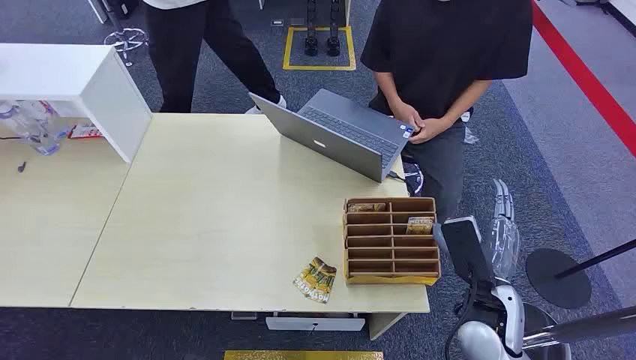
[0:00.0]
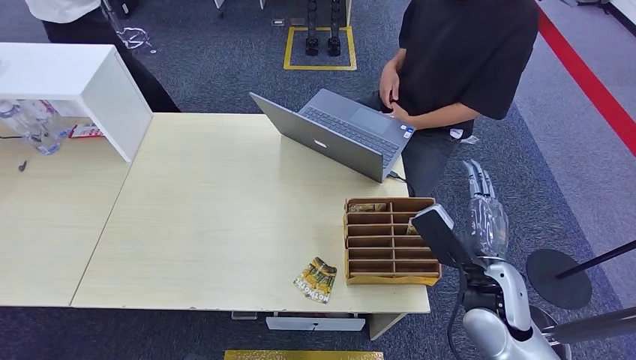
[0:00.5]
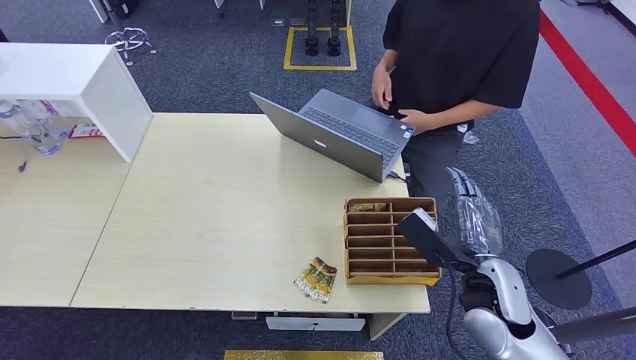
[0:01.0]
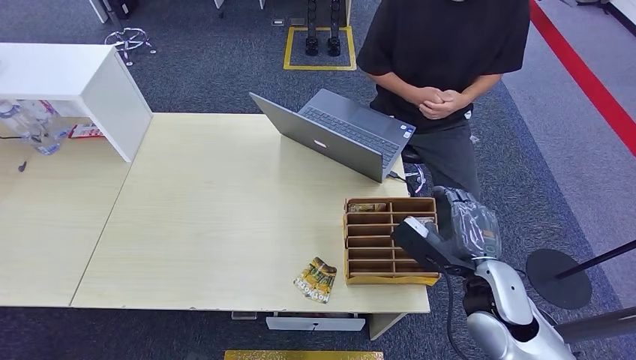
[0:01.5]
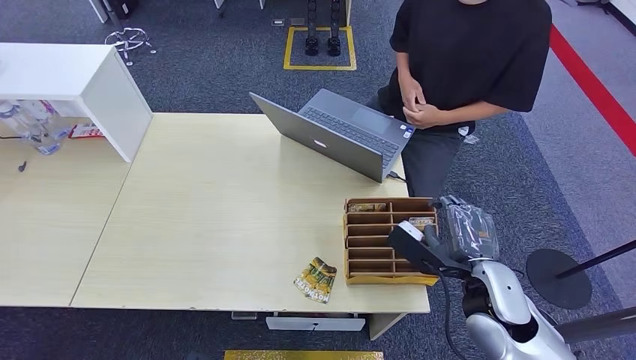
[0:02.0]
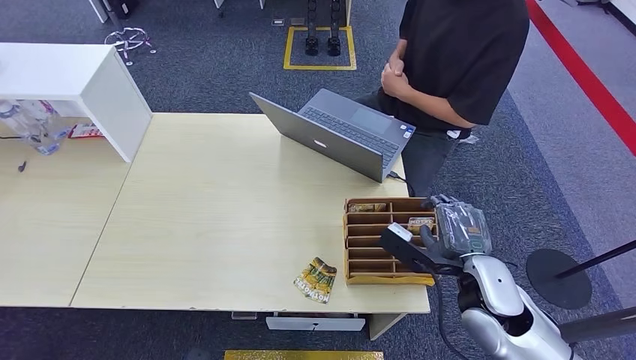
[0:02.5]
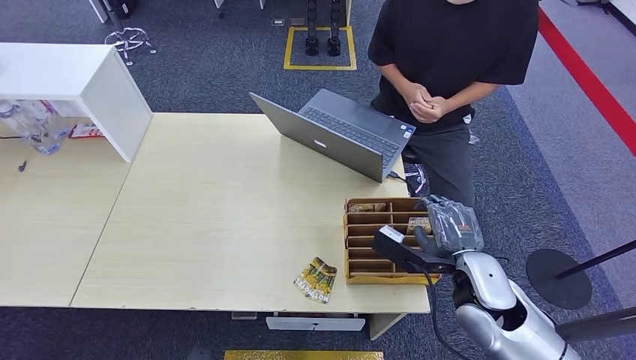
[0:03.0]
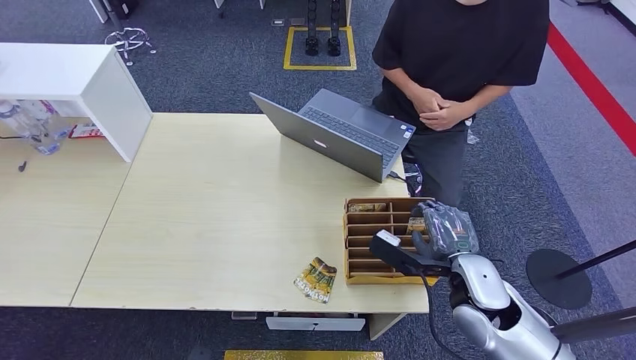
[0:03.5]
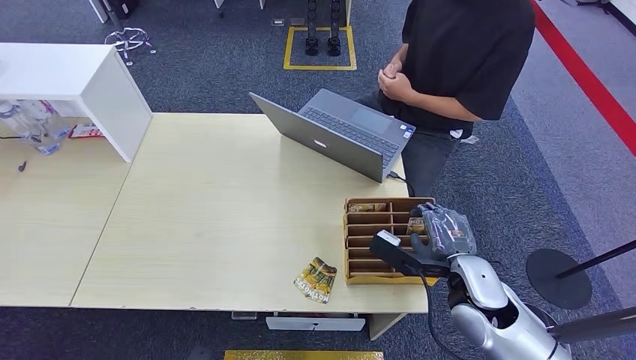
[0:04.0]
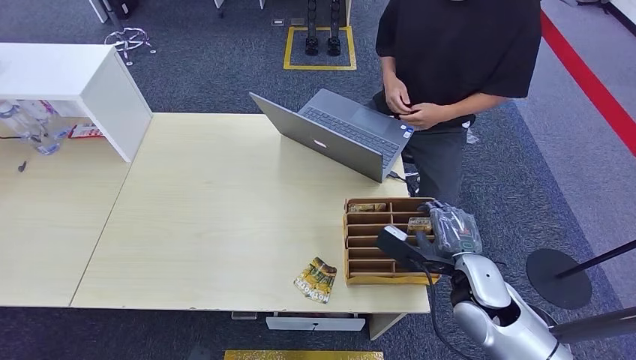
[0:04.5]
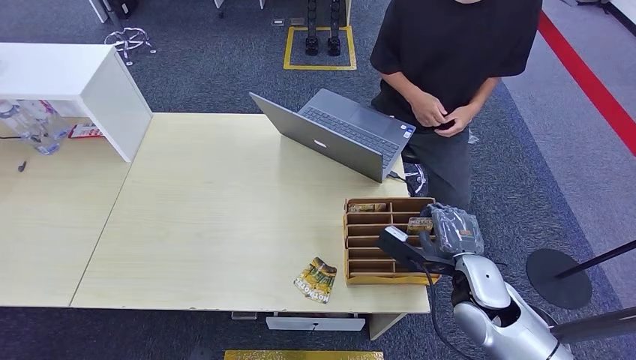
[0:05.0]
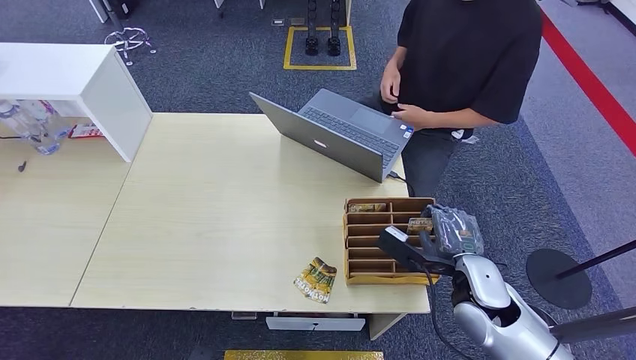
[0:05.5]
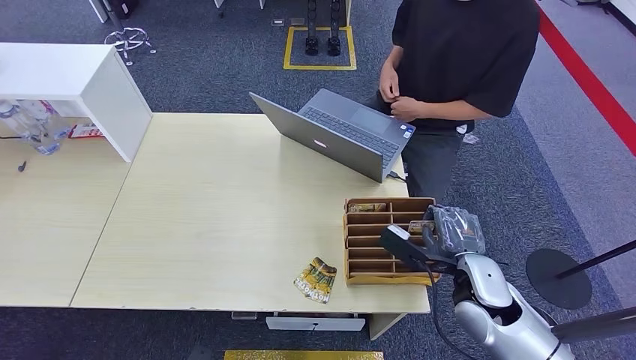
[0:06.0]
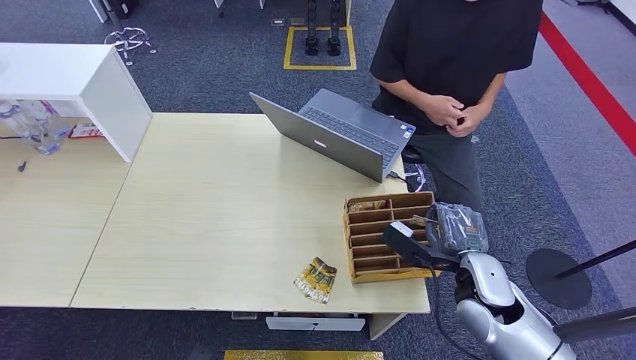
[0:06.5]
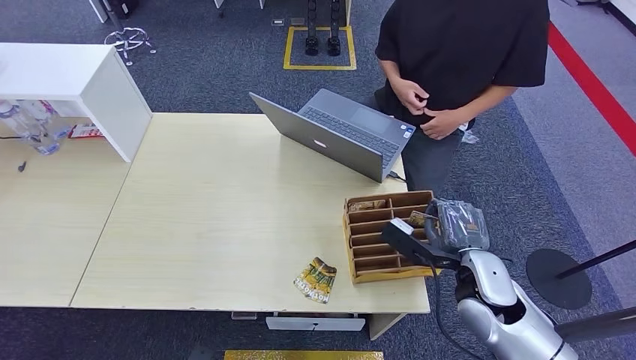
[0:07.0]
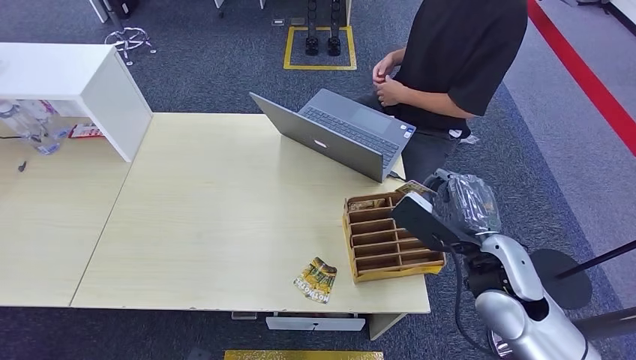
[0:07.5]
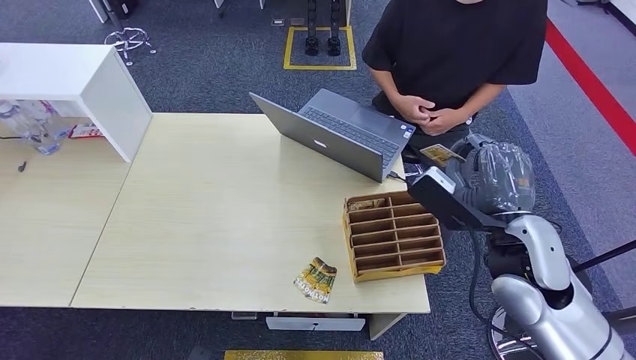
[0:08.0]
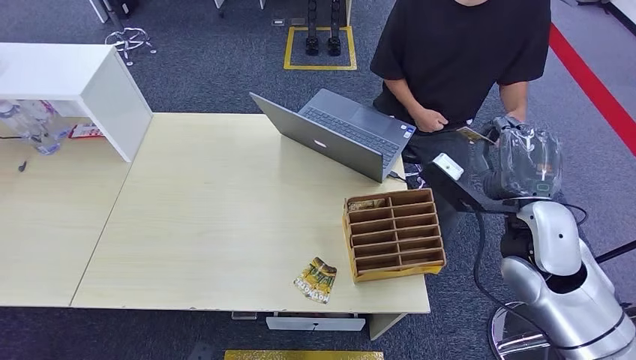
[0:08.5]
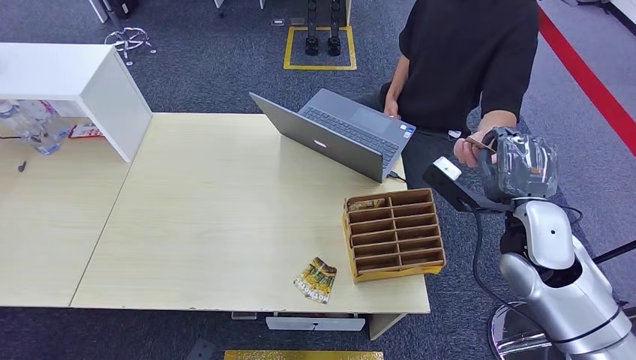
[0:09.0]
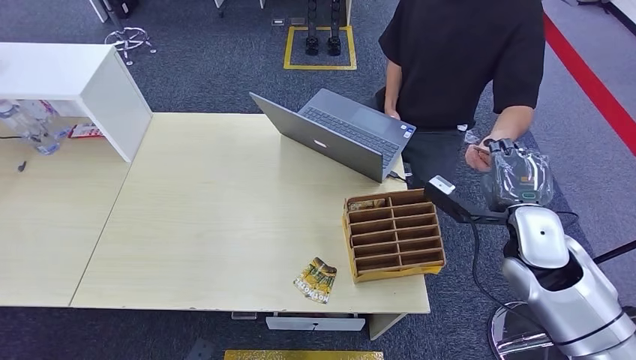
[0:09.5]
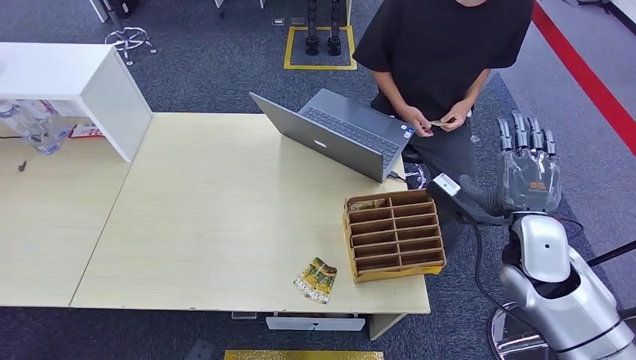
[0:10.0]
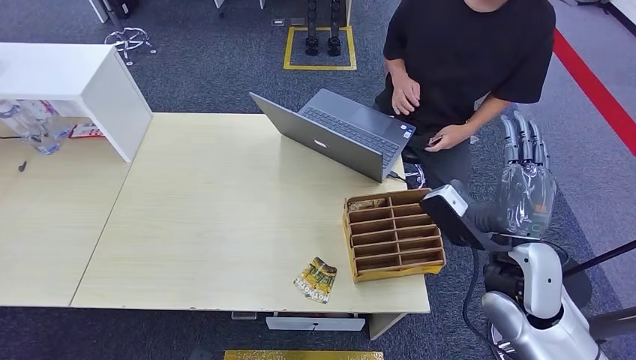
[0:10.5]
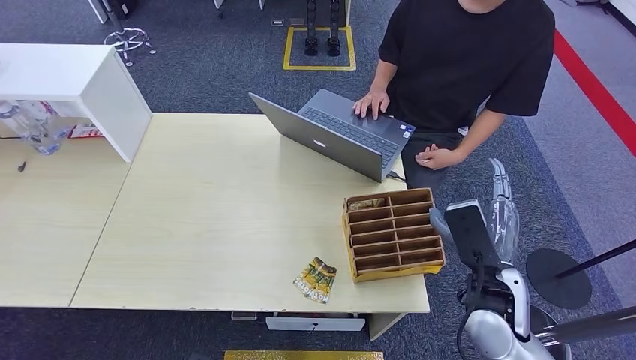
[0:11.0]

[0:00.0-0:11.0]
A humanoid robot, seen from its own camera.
Step, 0:00.0 to 0:07.5: Pick up the key card from the card box.
Step, 0:08.0 to 0:11.0: Hand the key card to the target.
0:02.0 to 0:05.5: The hands stay close to where they were, moving slightly.
0:05.5 to 0:07.5: The right hand shifts roughly 10 cm upward.
0:07.5 to 0:09.0: The right hand heads to the right, covering roughly 5 cm.
0:09.0 to 0:11.0: The right hand shifts about 10 cm downward, backward and to the left.

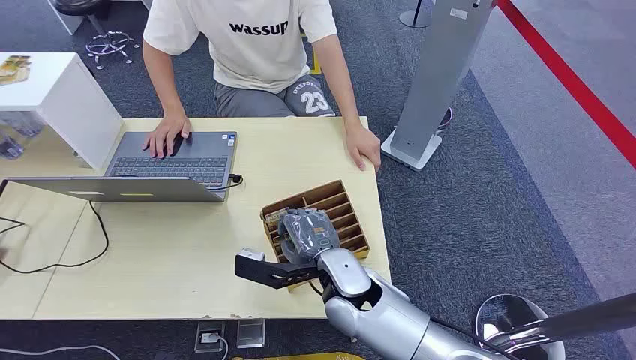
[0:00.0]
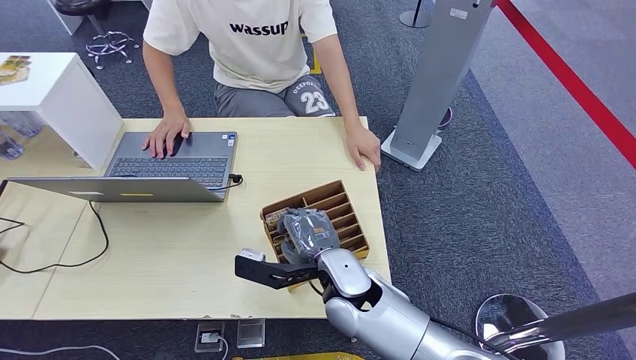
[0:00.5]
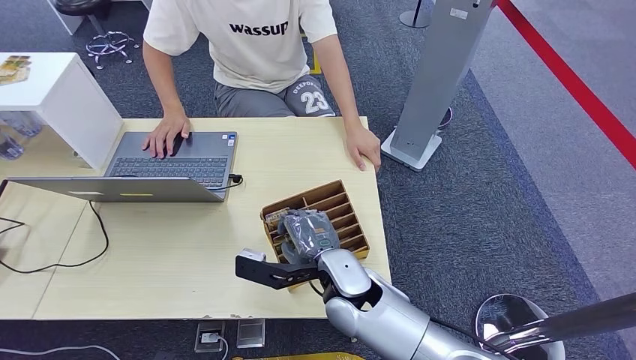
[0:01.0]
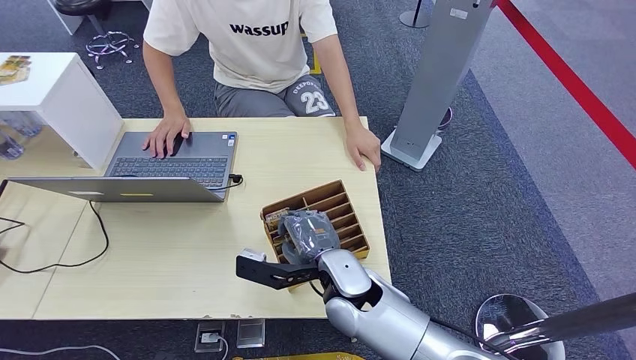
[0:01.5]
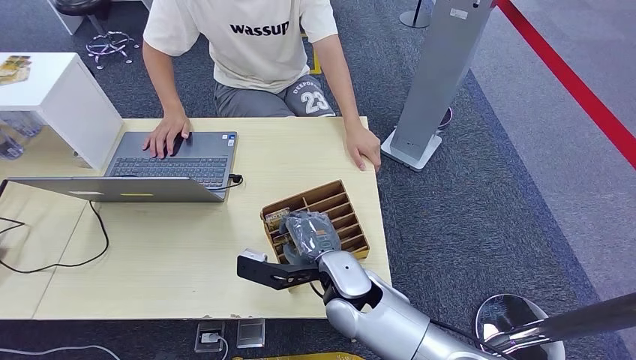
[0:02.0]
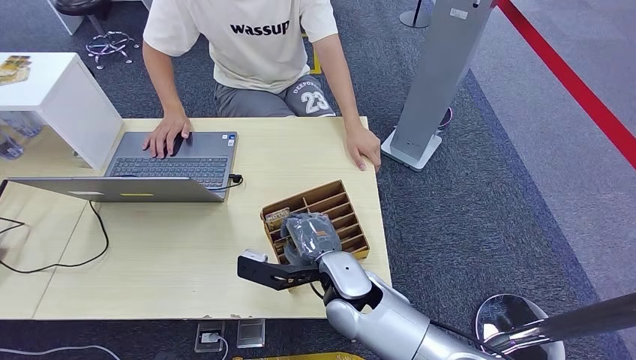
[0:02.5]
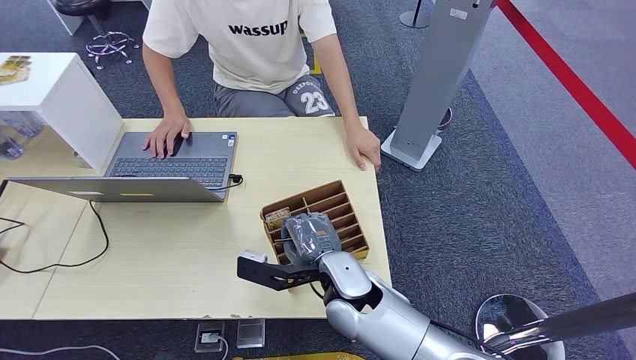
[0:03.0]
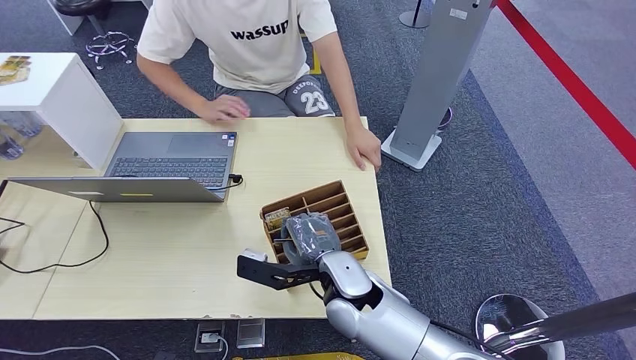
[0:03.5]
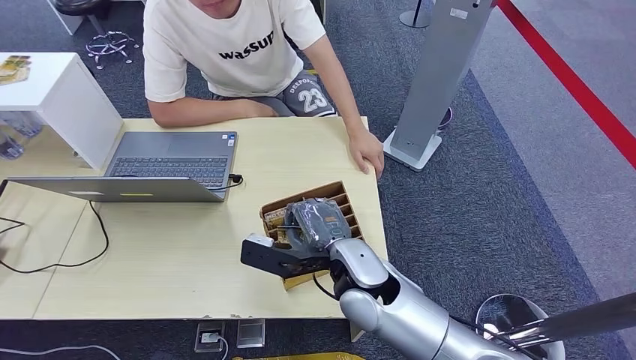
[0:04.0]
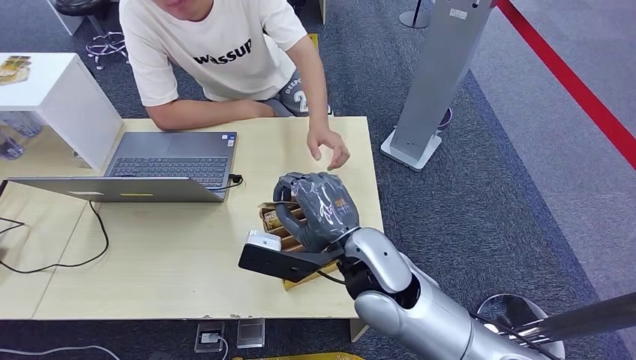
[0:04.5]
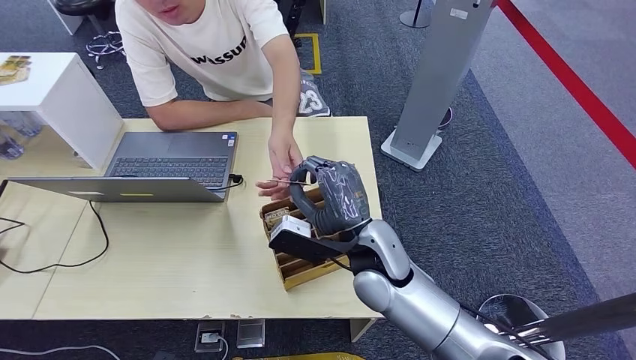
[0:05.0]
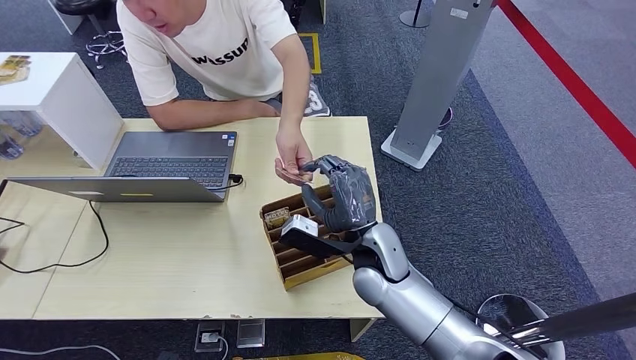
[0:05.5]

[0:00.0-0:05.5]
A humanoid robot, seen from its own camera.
Step, 0:00.0 to 0:03.5: Pick up the key card from the card box.
Step, 0:04.5 to 0:05.5: Hand the key card to the target.
0:02.0 to 0:03.5: The two hands keep their place.
